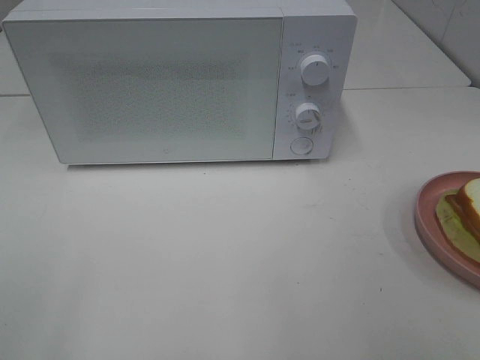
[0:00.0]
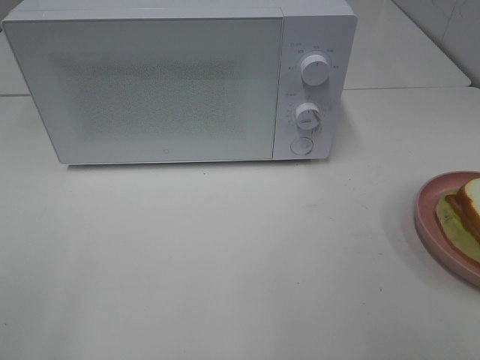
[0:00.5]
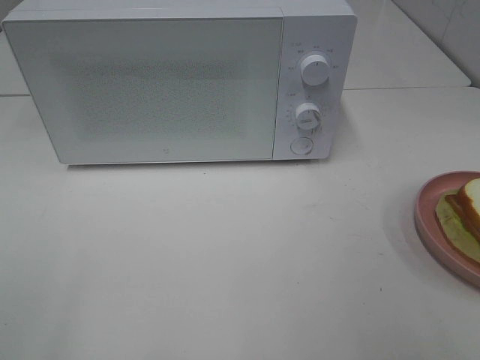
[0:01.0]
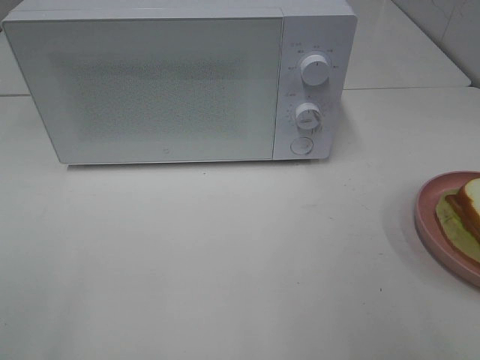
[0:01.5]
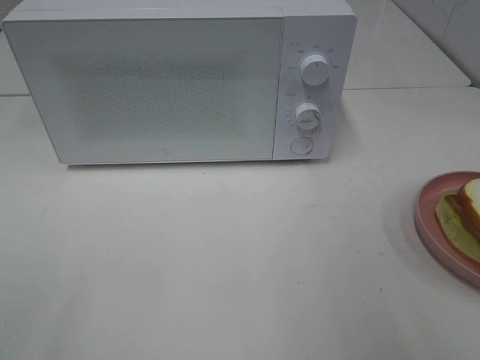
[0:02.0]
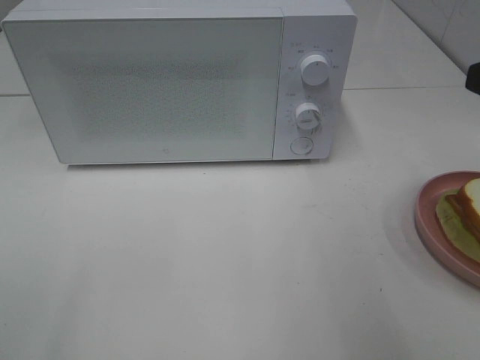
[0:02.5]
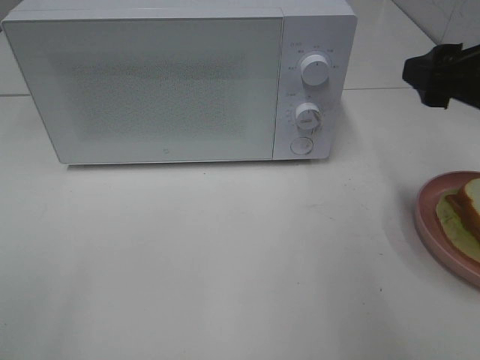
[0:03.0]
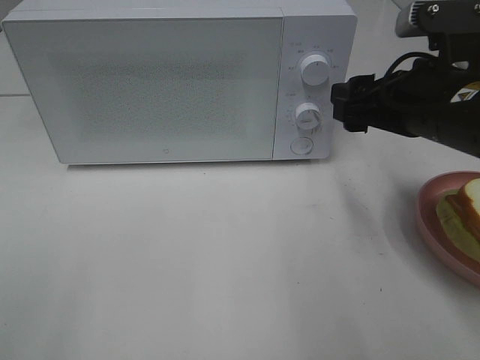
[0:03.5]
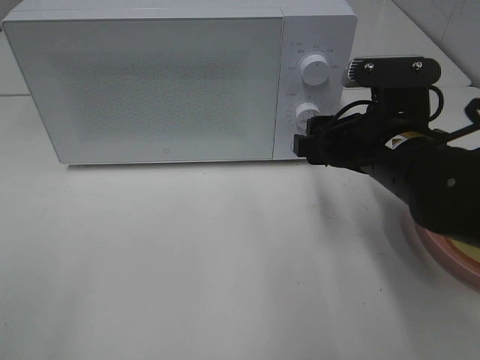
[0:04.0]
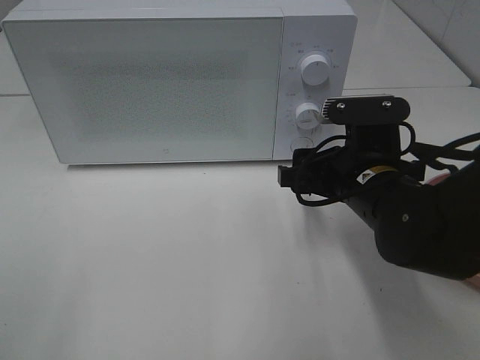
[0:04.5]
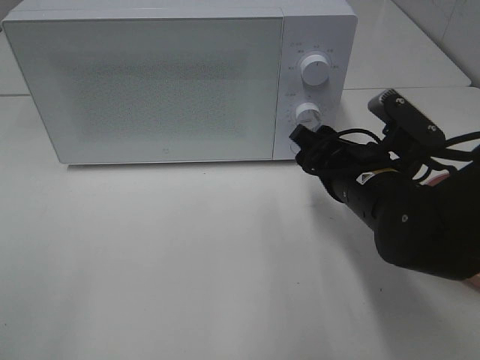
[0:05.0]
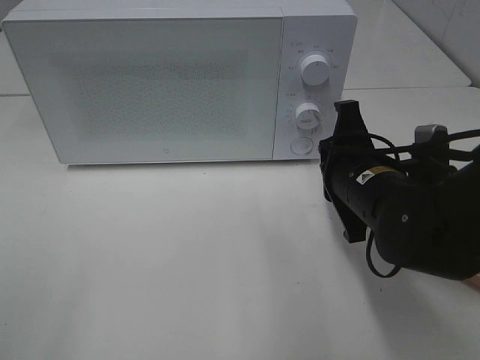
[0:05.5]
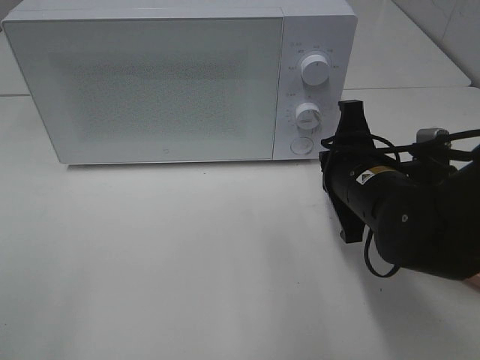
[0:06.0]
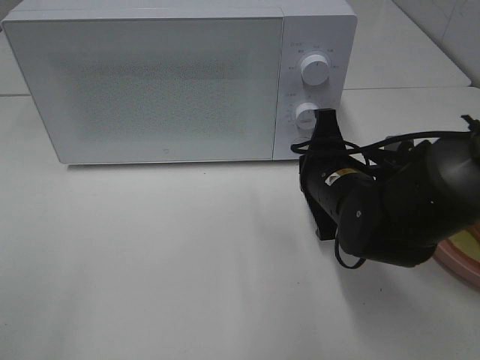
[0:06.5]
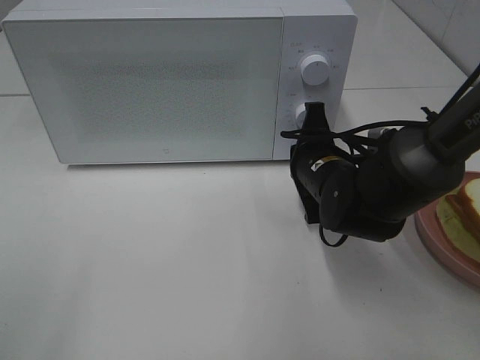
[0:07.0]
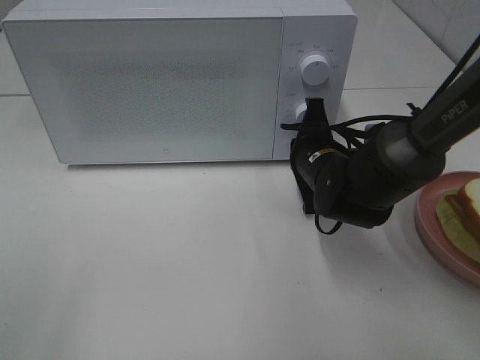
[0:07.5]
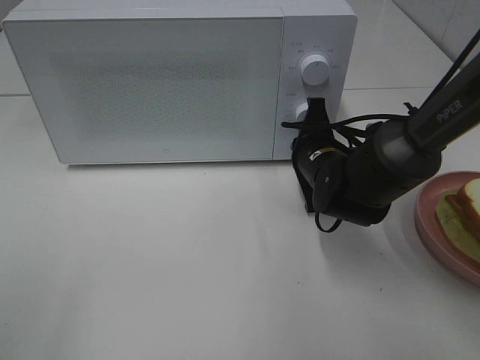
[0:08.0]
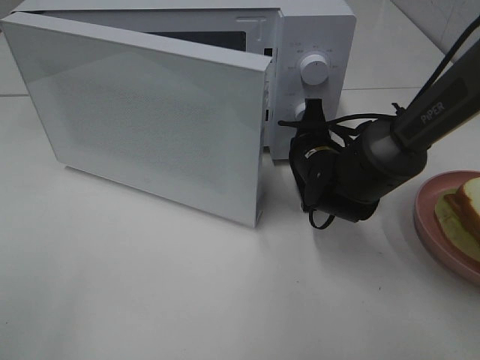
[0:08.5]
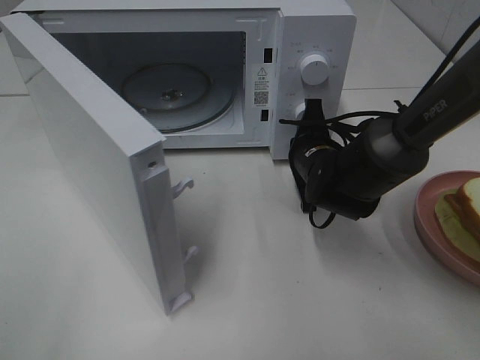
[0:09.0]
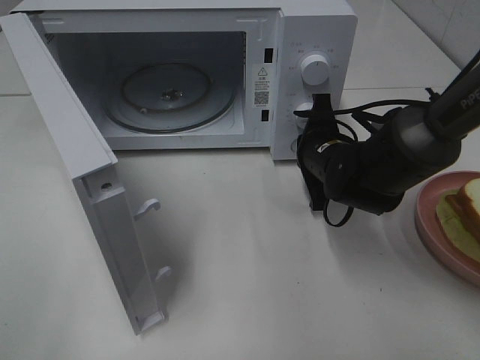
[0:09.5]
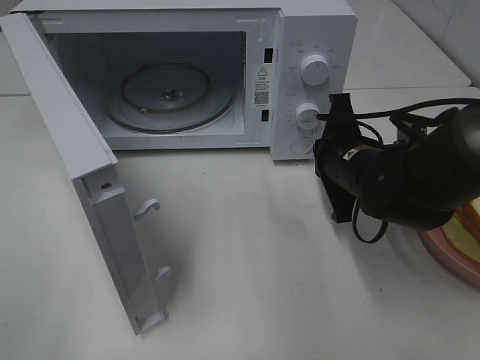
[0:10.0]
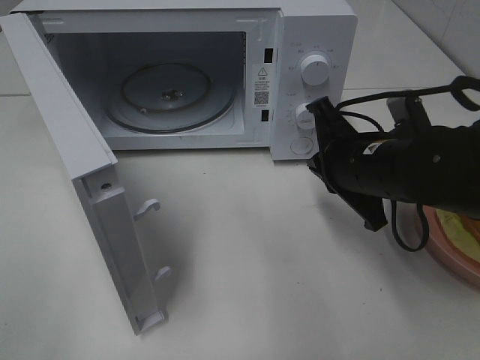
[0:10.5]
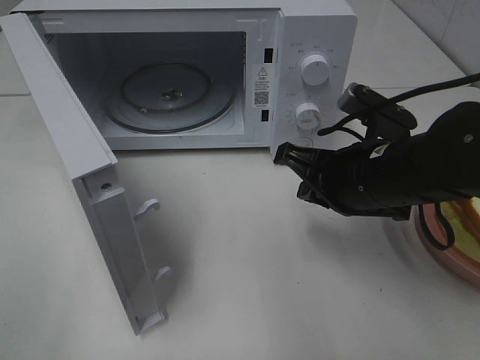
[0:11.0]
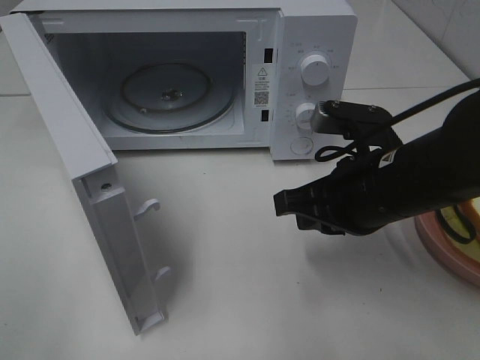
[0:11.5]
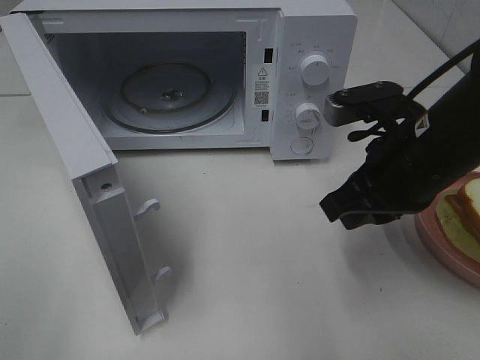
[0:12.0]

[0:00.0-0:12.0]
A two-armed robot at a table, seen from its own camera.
Task of the whole recording: Heat Sandwich.
Step, 0.0 to 10.0 s: Right hand: press the switch.
2.0 to 4.0 s: The right gripper travels downward, forward and to the left by approximately 25 cm.
4.0 to 6.0 s: The right gripper closes up.
6.0 to 8.0 s: The right gripper goes about 10 cm forward and downward.
8.0 to 10.0 s: The right gripper changes place by about 5 cm.
10.0 to 12.0 s: The right gripper is displaced upward and backward by about 10 cm.

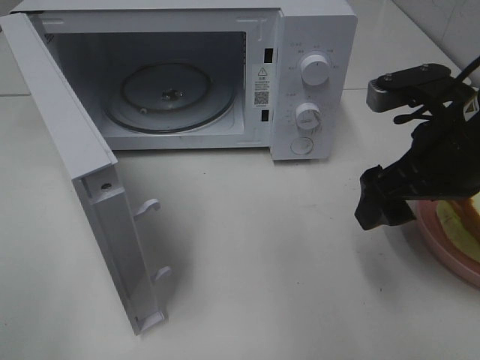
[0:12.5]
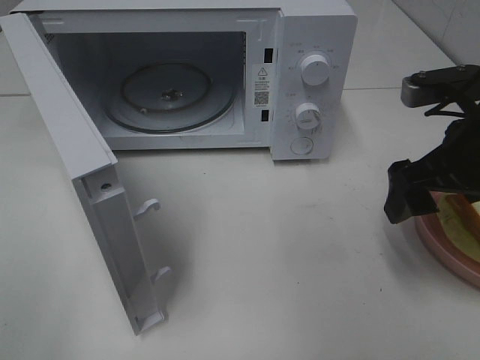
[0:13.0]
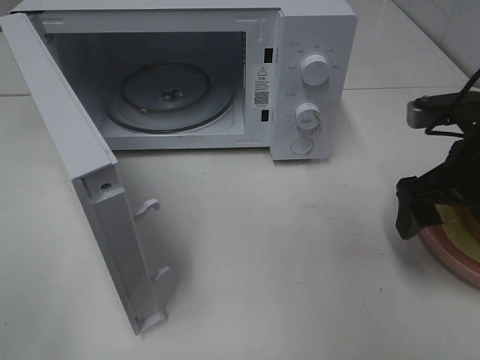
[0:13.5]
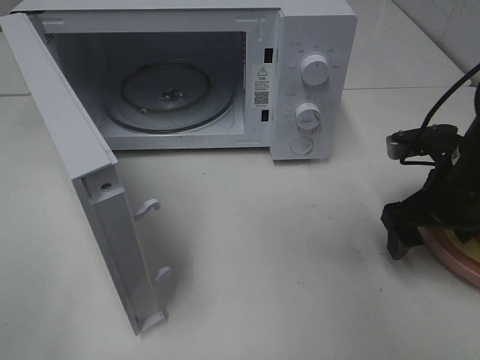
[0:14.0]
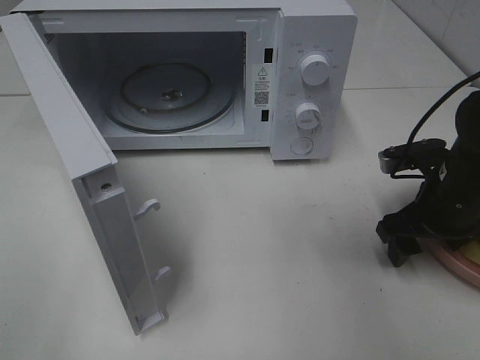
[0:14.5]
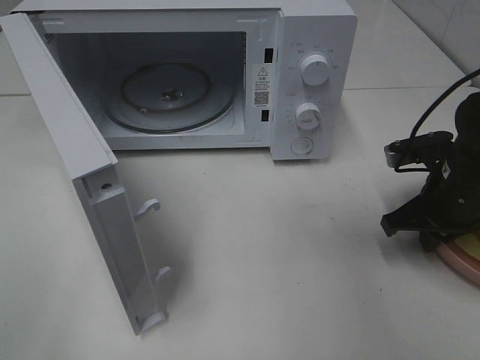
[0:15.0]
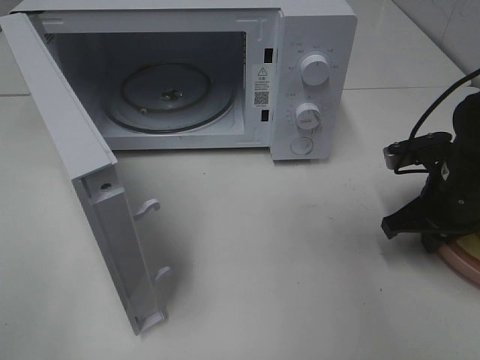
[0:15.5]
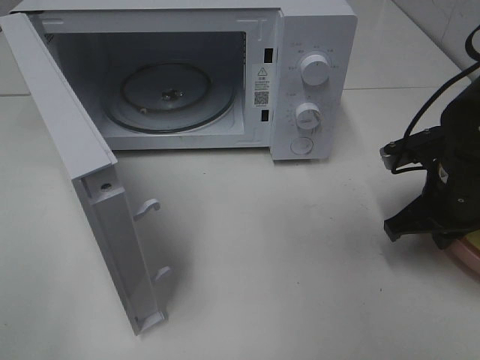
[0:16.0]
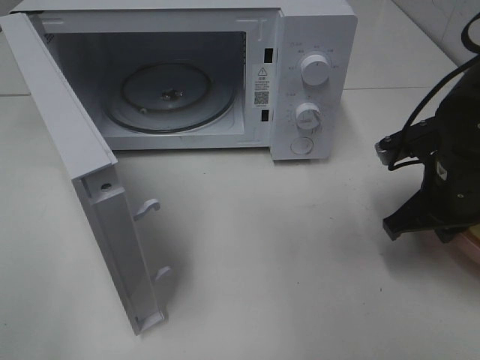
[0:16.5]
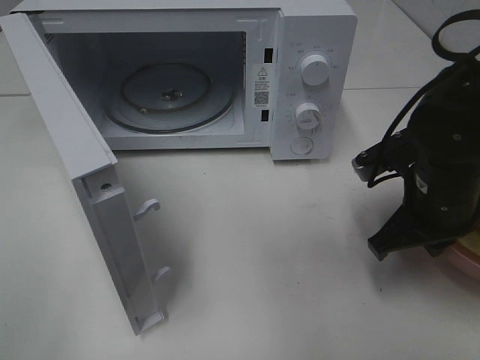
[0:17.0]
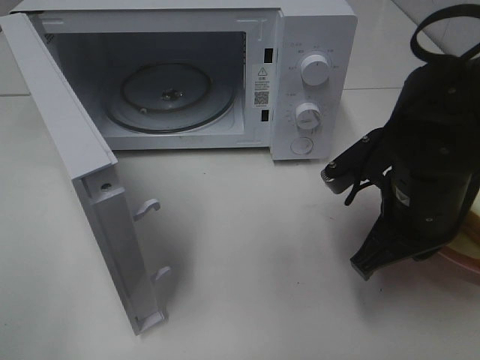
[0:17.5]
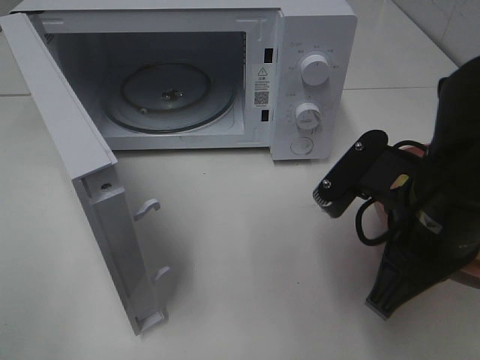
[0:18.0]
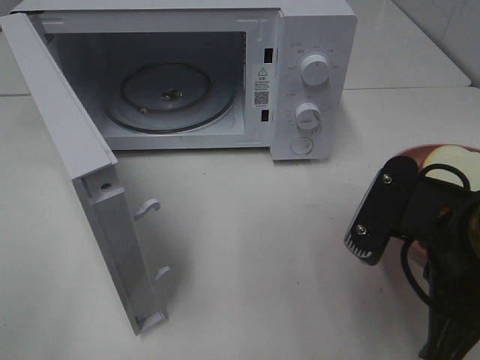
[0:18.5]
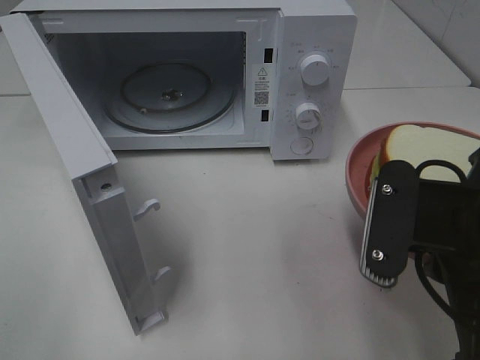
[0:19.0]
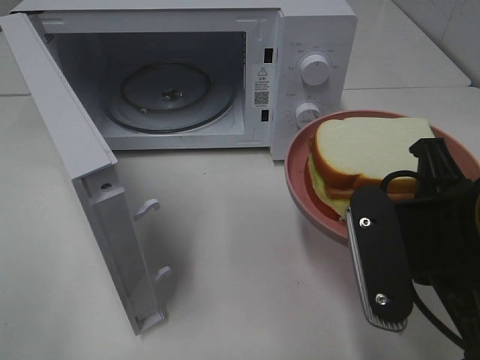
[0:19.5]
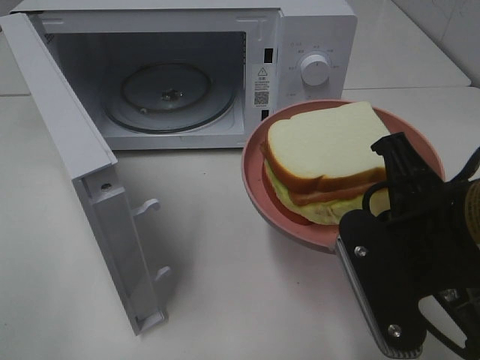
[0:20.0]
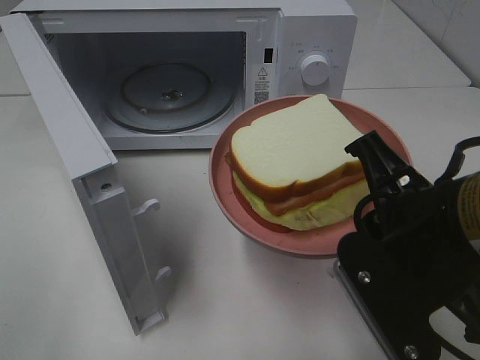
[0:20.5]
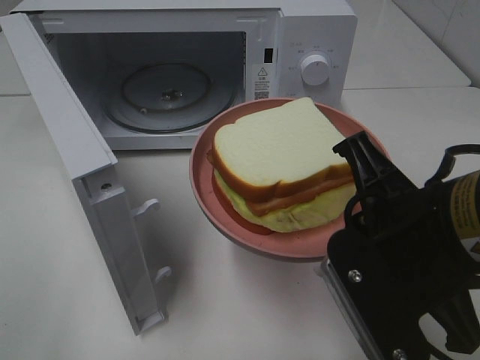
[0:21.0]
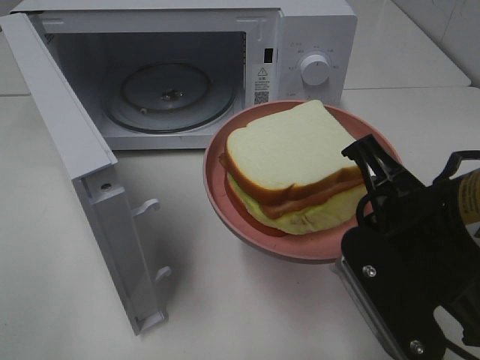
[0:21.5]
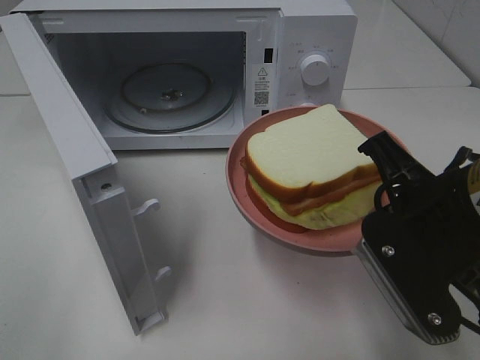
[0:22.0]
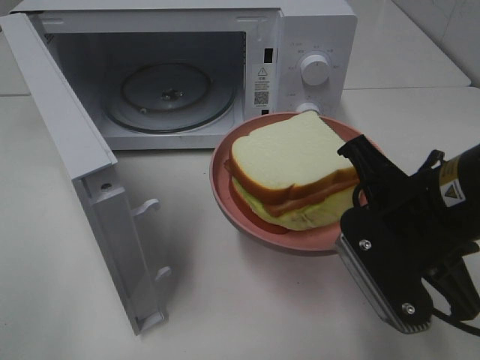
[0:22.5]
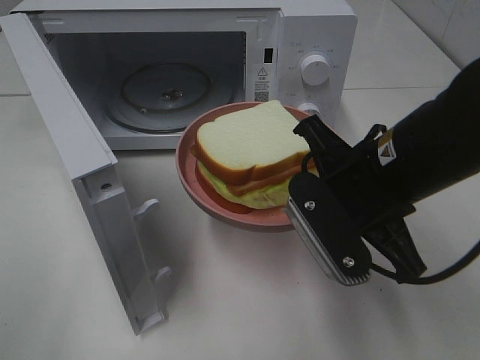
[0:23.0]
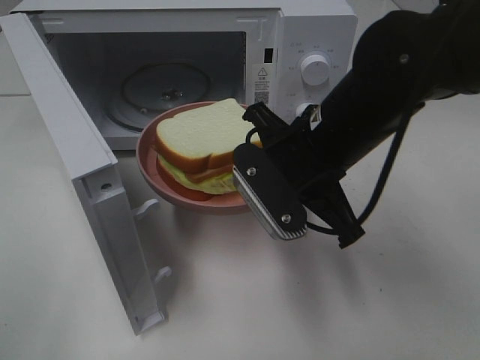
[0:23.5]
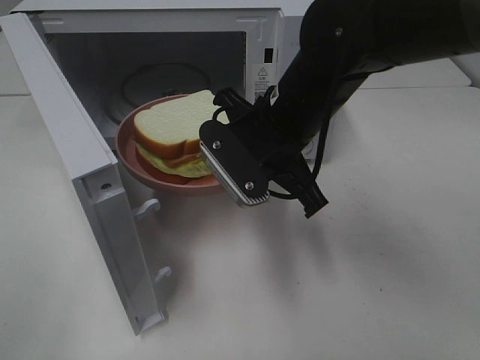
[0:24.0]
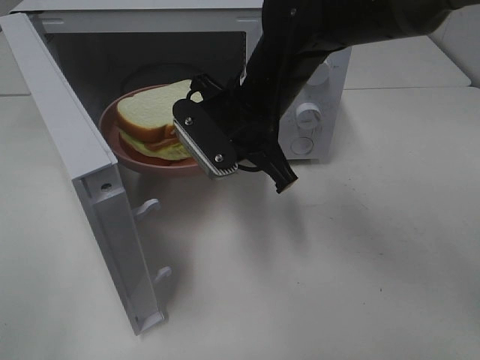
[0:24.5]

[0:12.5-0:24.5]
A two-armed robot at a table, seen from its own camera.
Task of the whole recording: Heat Sandwich.
Step, 12.5 to 14.5 s: Right hand: grab the plate with the sandwich.
12.5 to 14.5 s: The right gripper moves downward, roughly 10 cm.
14.5 to 16.5 s: The right gripper closes up.
16.5 to 18.5 s: The right gripper shifts about 15 cm backward, to the left and upward.
20.5 to 22.5 s: The grippers move only a little.
22.5 to 24.5 s: The right gripper is displaced forward and to the left by about 20 cm.

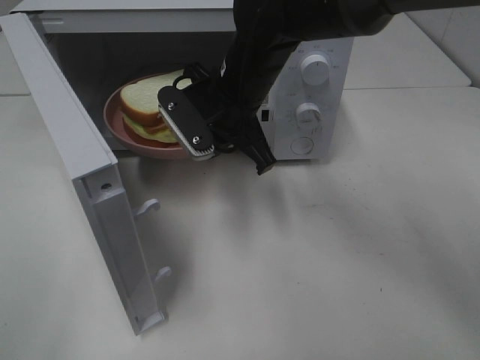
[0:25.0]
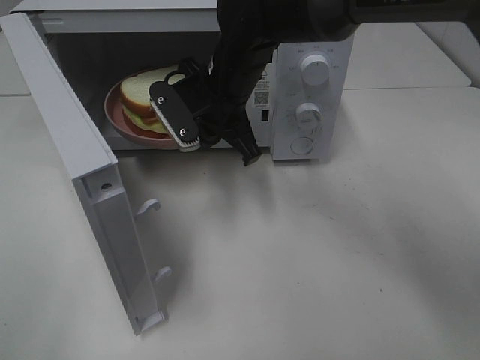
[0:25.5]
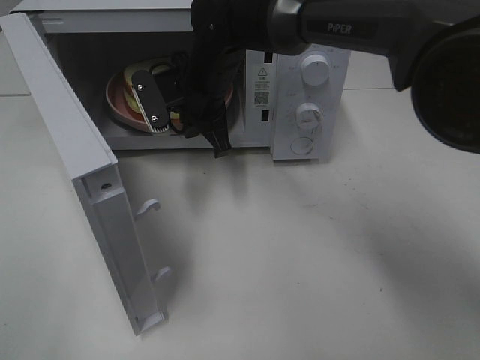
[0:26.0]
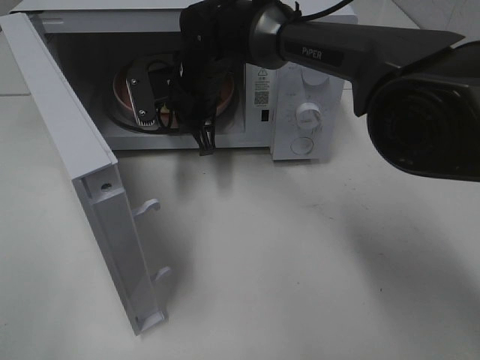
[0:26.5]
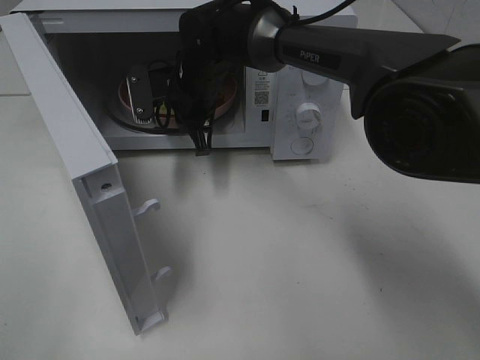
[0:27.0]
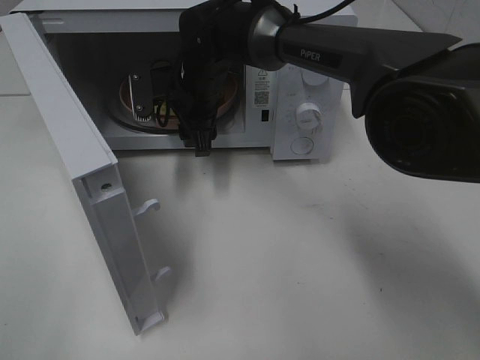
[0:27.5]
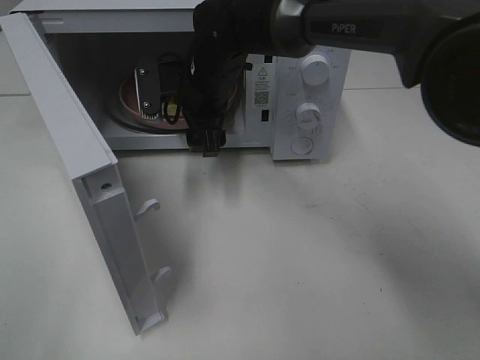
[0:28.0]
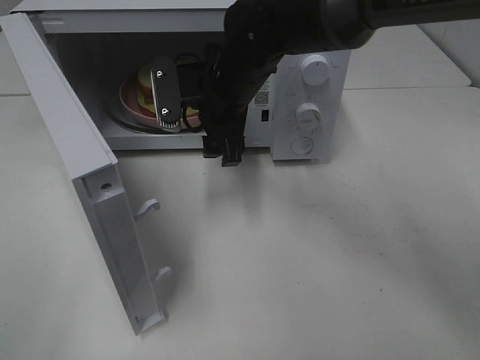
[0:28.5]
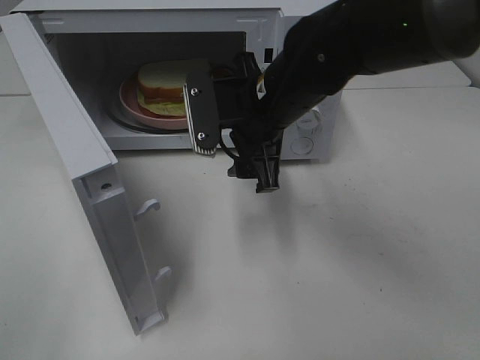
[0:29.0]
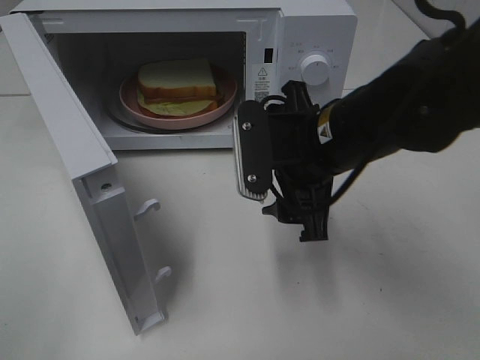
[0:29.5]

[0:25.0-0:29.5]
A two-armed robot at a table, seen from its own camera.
Task of the whole recording: Heat Sandwich.
Step, 25.0 to 28.5 s: Right hand: place the plate in the microwave.
25.0 to 27.0 s: The right gripper goes approximately 10 cm forward and to the left.
27.0 to 29.5 s: The right gripper travels backward and to the right by some 25 cm, and opens.
